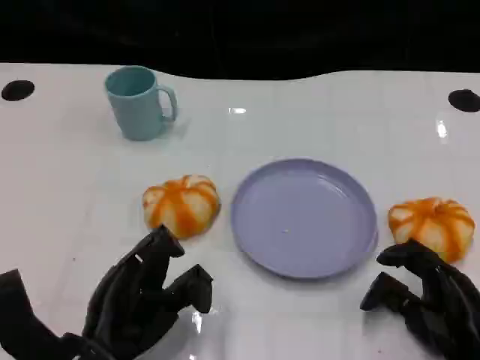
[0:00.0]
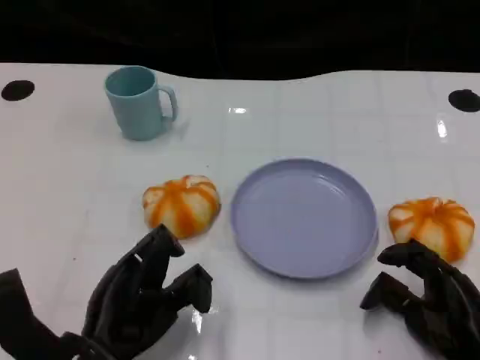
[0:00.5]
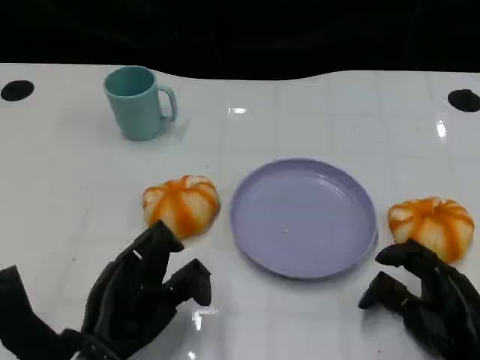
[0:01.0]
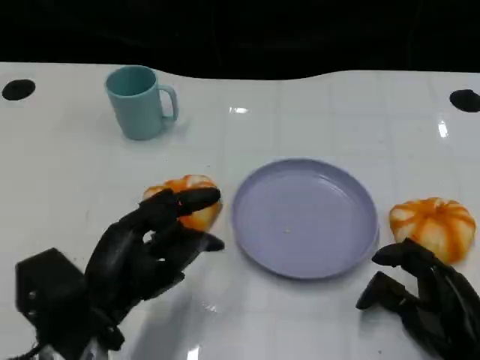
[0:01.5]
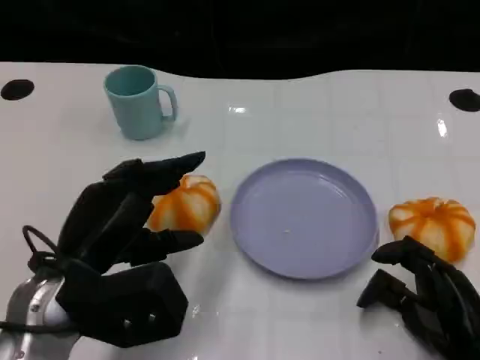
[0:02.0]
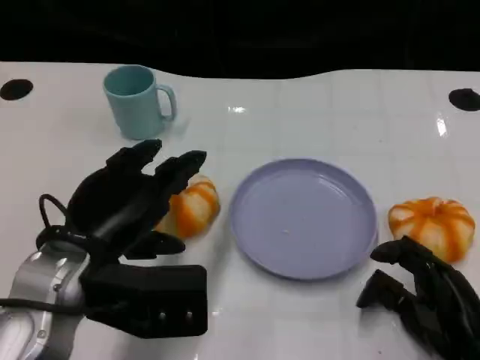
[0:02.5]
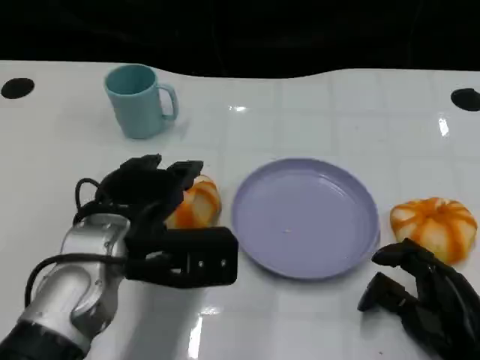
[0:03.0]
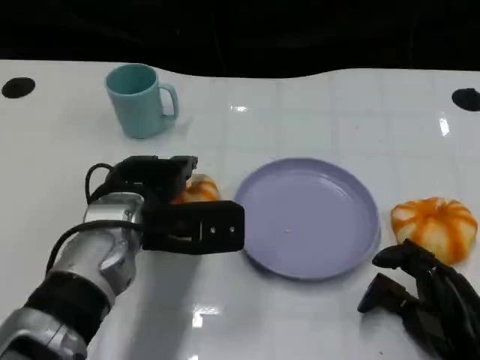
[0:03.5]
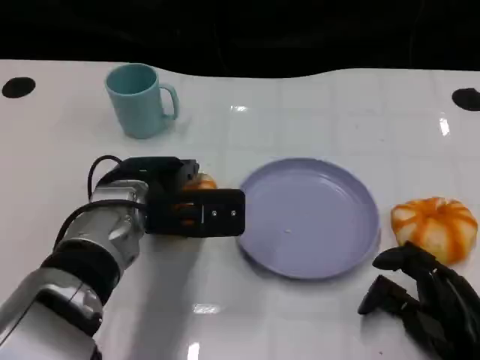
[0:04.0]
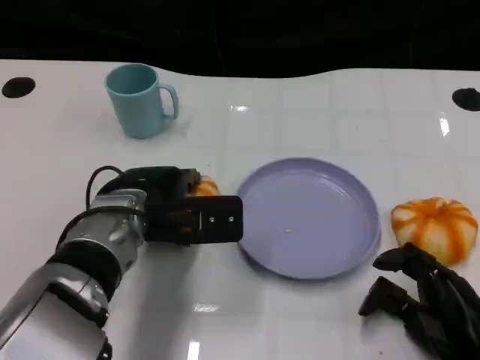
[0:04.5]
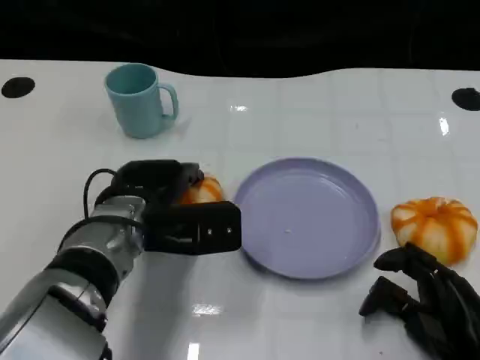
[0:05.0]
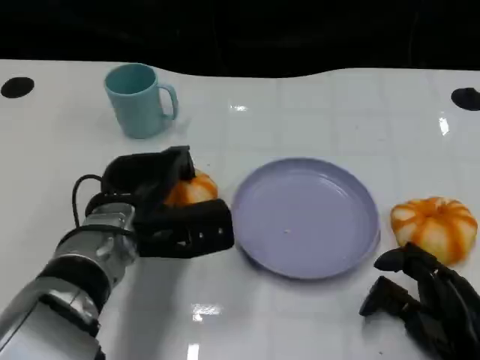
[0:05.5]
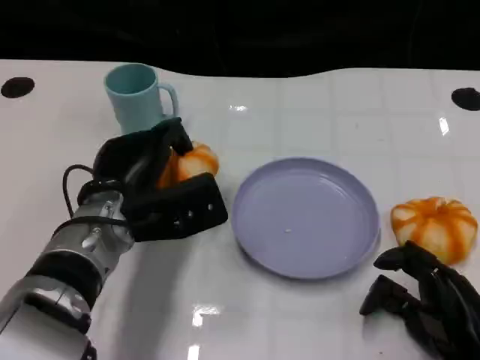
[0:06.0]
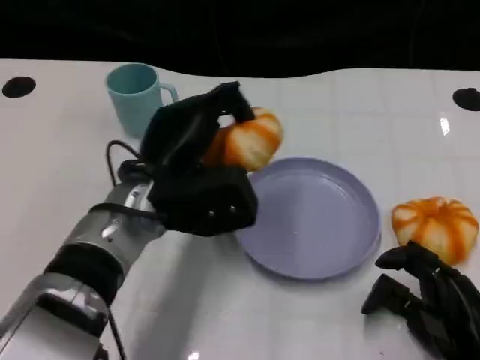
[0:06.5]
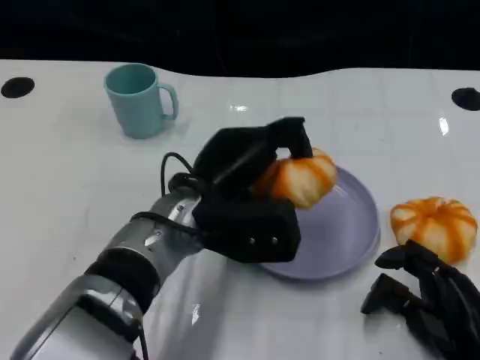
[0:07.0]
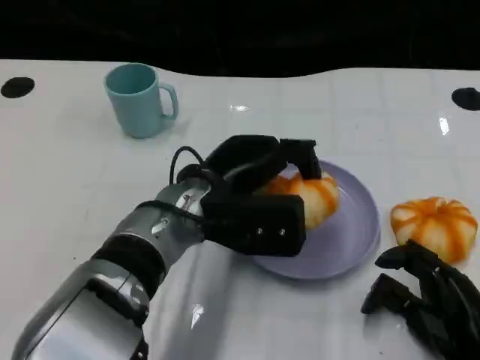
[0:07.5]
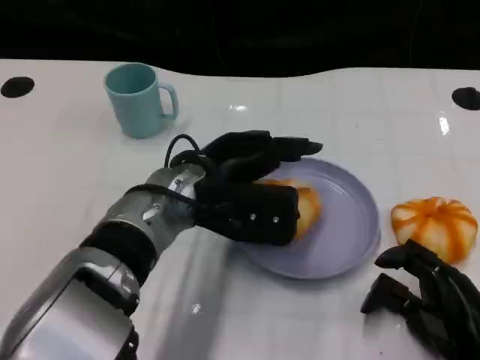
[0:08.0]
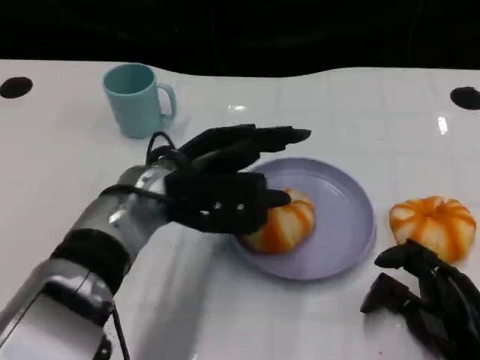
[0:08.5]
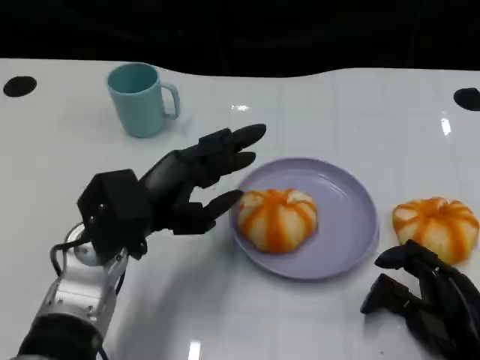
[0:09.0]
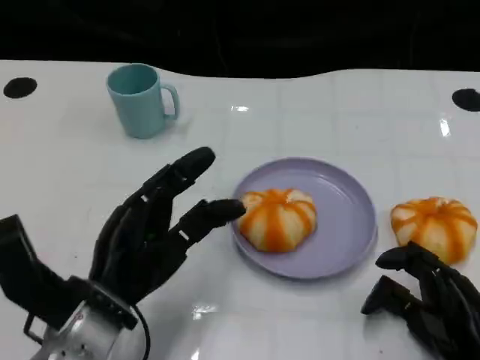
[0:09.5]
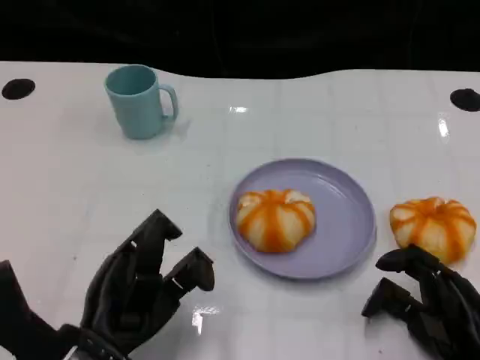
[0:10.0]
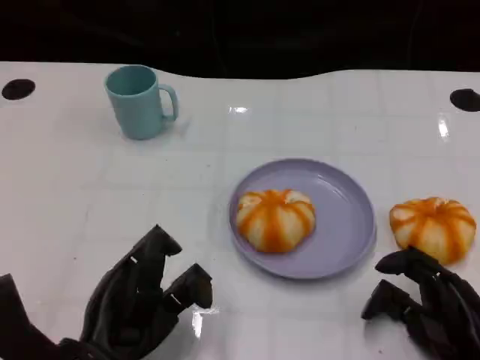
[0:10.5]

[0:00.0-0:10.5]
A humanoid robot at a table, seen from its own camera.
Task of the whole recording: Grasp the bread from the table and place it into the plate.
0:00.0 to 0:02.0: The left hand goes approximately 10 cm upward.
0:02.0 to 0:04.0: The left hand heads forward and to the right, covering about 10 cm.
0:08.5 to 0:10.5: The left hand is displaced backward, downward and to the left by about 20 cm.

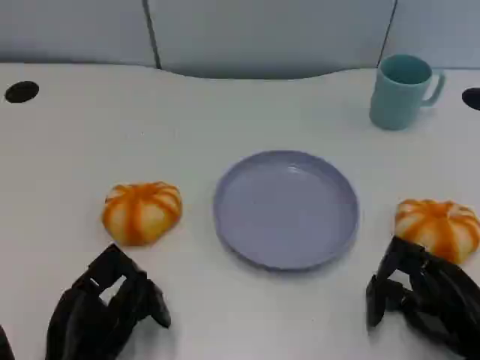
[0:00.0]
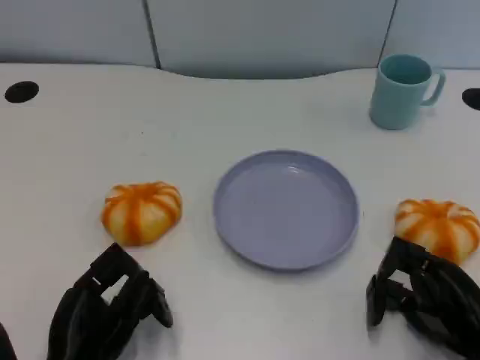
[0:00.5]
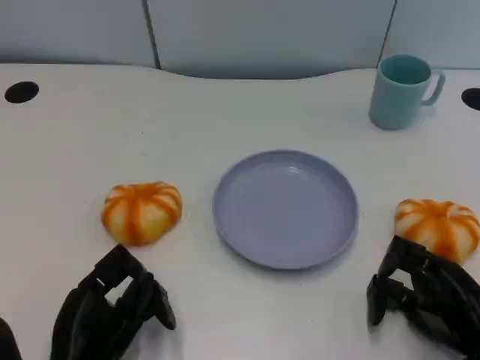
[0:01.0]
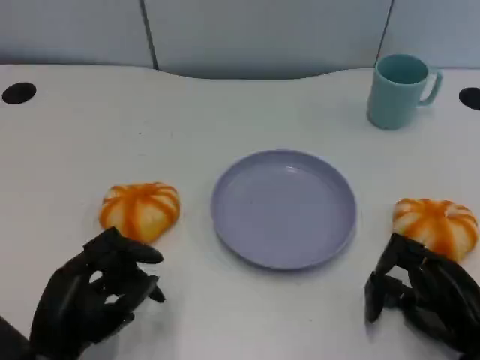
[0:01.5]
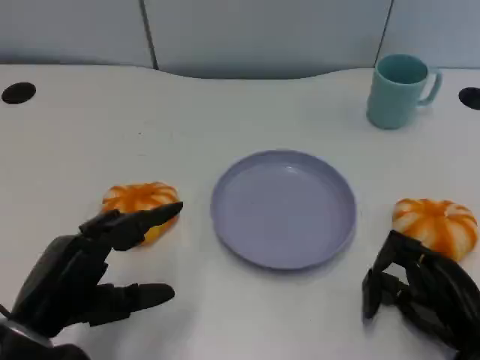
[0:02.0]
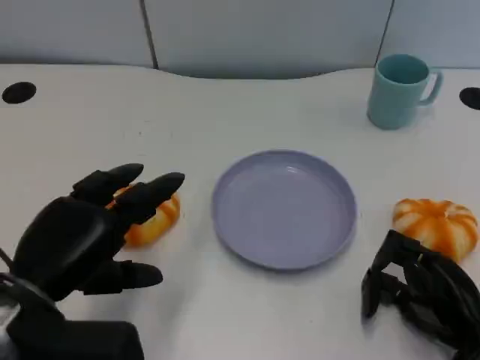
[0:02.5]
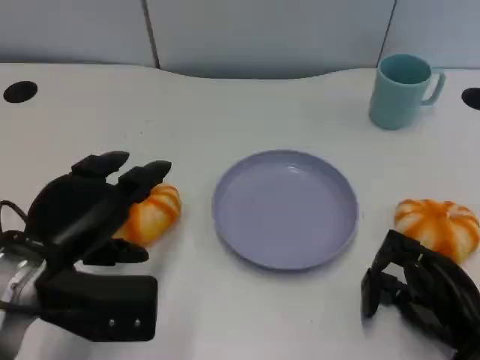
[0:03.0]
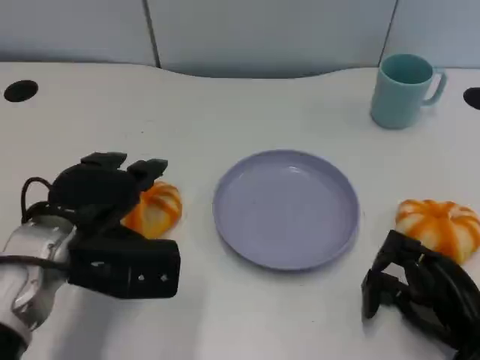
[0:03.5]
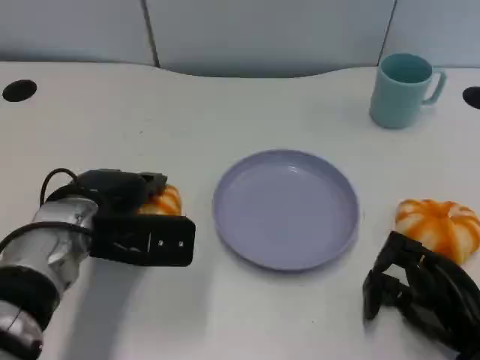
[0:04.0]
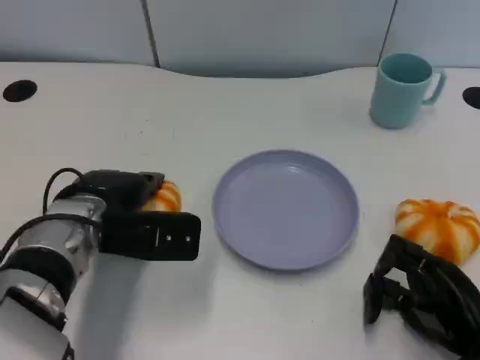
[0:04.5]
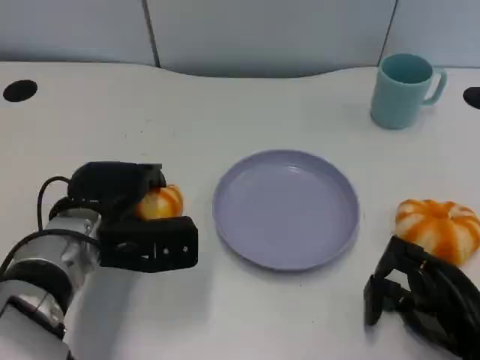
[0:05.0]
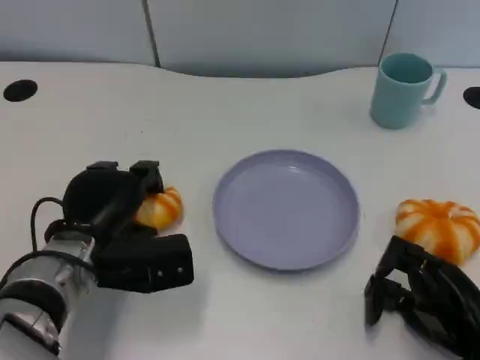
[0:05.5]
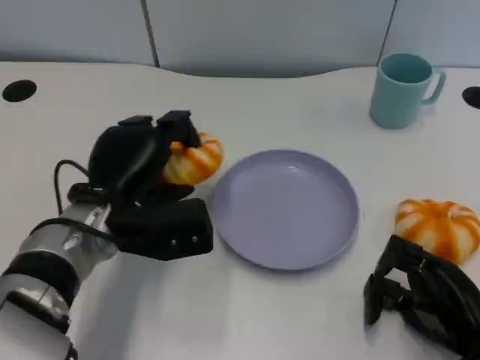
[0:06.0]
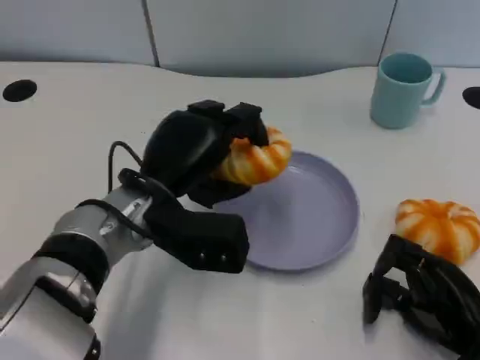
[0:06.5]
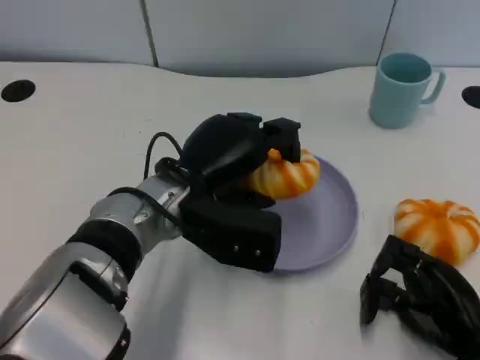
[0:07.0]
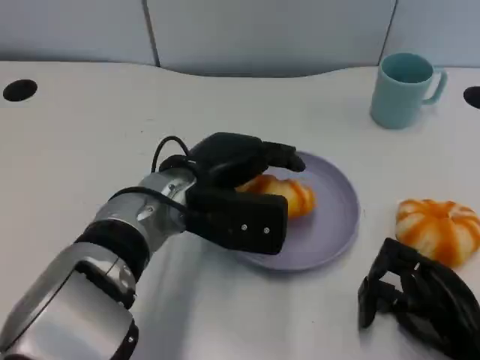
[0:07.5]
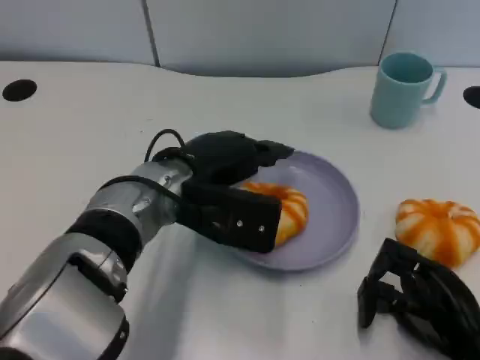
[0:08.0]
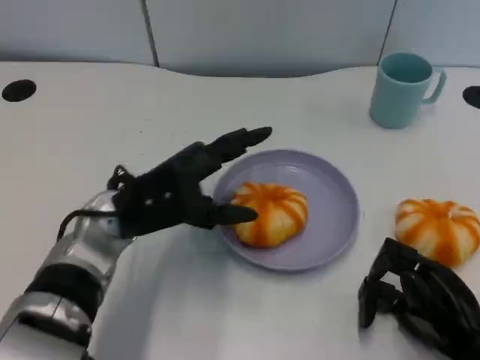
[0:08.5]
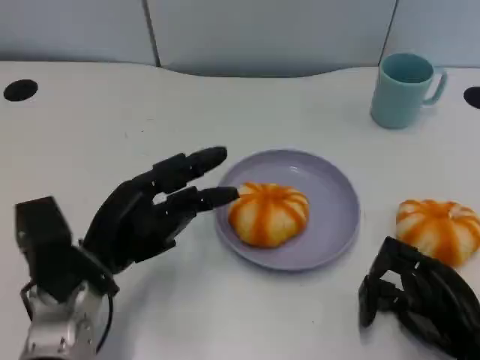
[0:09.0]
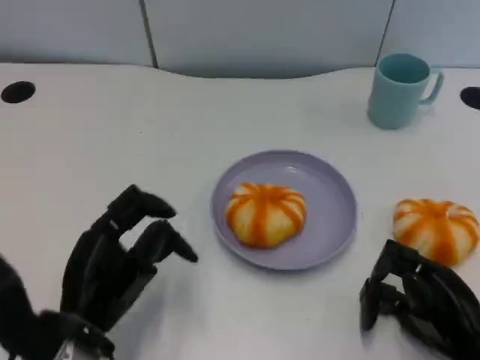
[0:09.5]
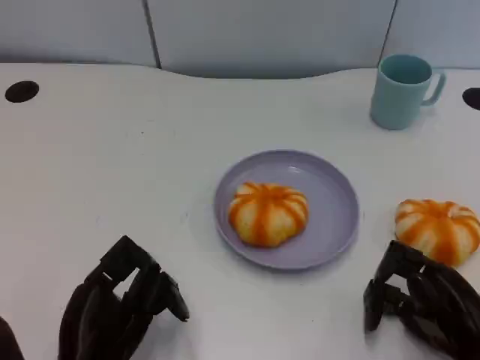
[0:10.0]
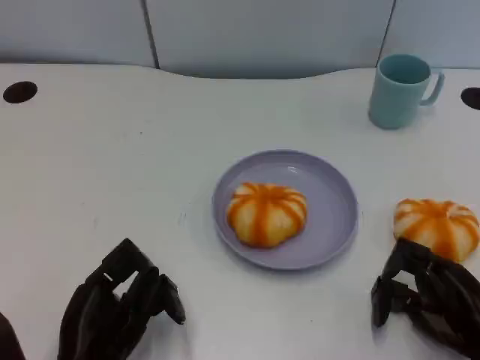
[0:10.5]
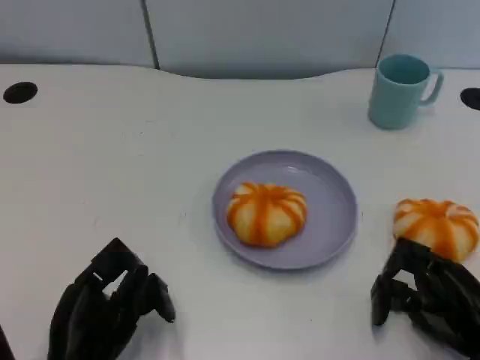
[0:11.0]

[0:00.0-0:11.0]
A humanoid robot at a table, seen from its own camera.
Task of the whole recording: Grasp the bread from the table and place it into the plate.
0:00.0 to 0:02.0: The left hand heads upward, covering some 10 cm.
0:02.0 to 0:03.5: The left hand shifts about 10 cm forward.
0:03.5 to 0:05.5: The left hand shifts about 5 cm downward.
0:05.5 to 0:07.5: The left hand moves to the right and upward, roughly 10 cm.
0:07.5 to 0:09.0: The left hand moves to the left, backward and downward, some 15 cm.
0:09.0 to 0:11.0: The left hand goes some 10 cm backward.

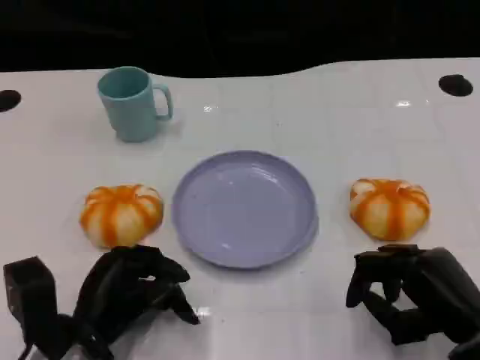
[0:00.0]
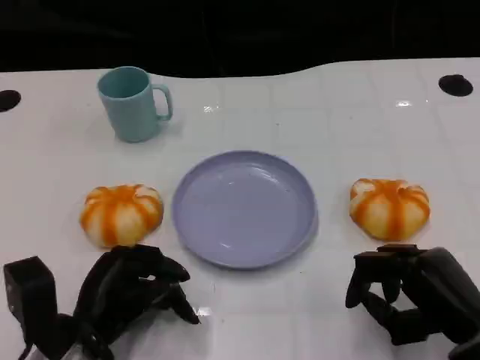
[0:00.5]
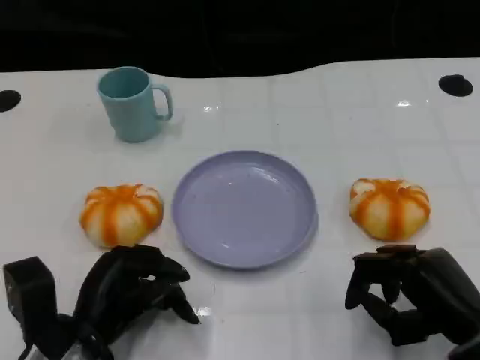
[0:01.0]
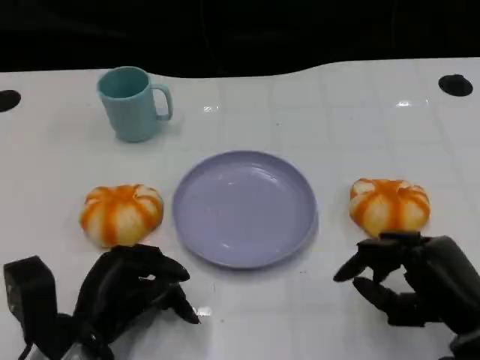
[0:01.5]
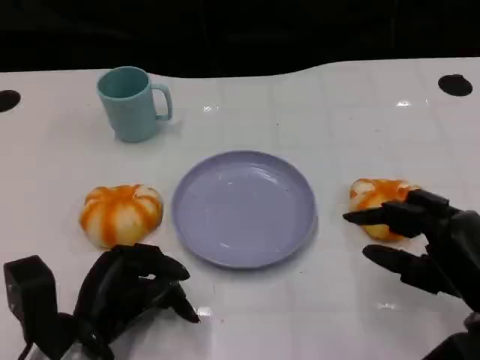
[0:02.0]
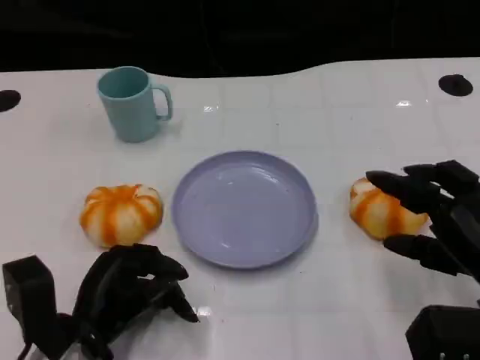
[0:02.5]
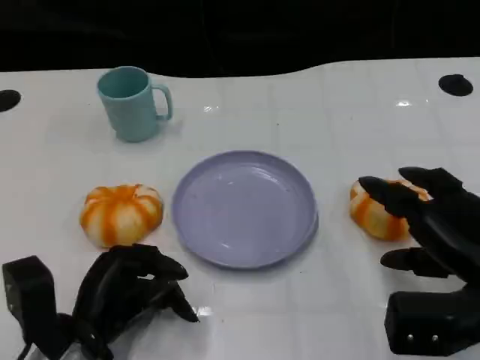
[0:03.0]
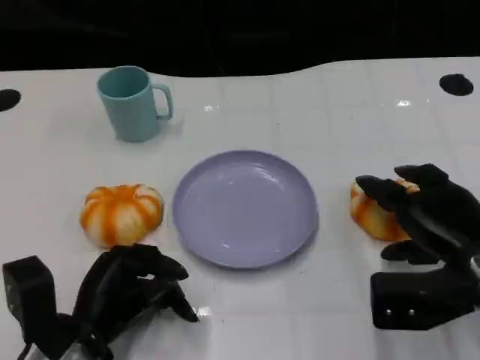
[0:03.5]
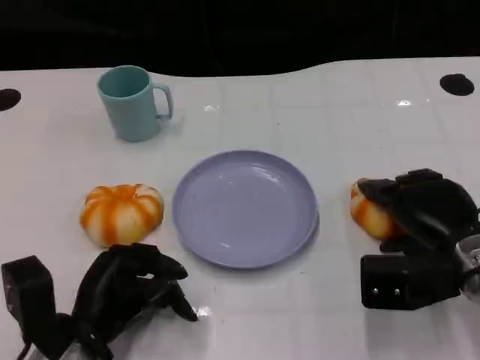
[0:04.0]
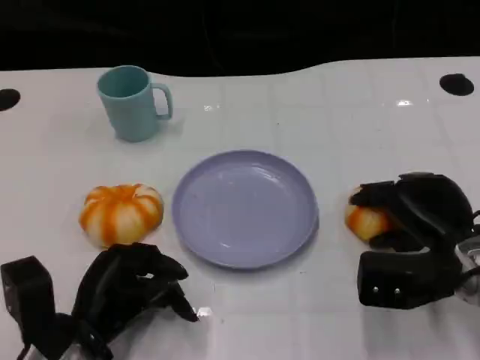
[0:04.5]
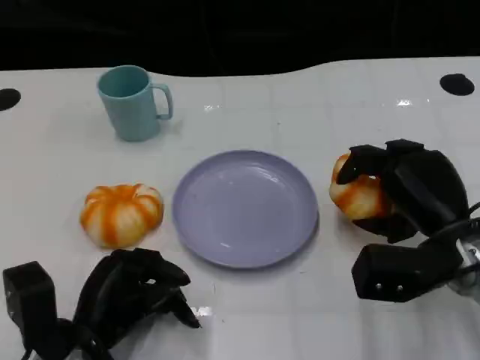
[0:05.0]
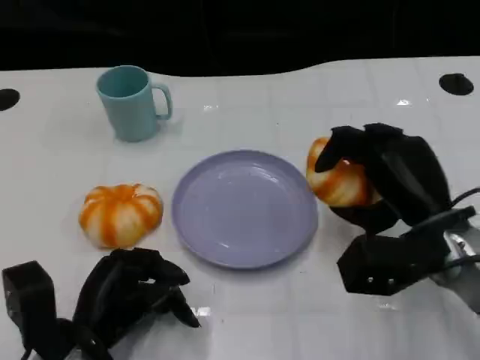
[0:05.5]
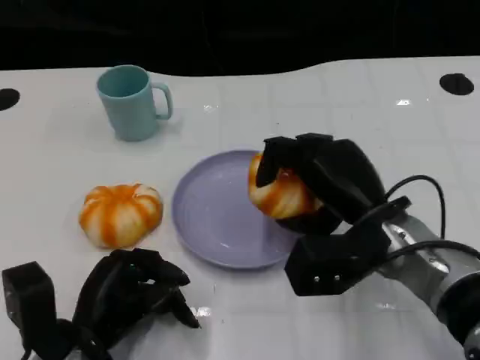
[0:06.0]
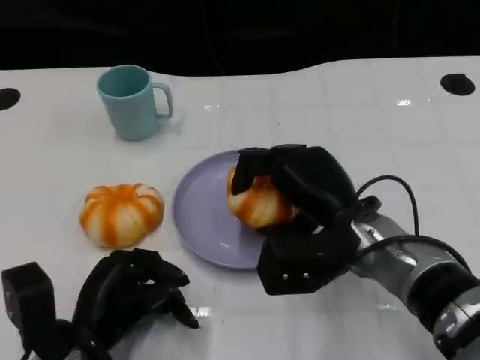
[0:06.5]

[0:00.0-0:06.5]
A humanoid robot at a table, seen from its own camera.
Task of the whole recording: Grasp the bread from the table and place it into the plate.
0:00.0 to 0:02.0: The hands move only a little.
0:02.0 to 0:04.5: The right hand moves forward, roughly 10 cm.
0:04.5 to 0:06.5: The right hand shifts some 10 cm to the left.
